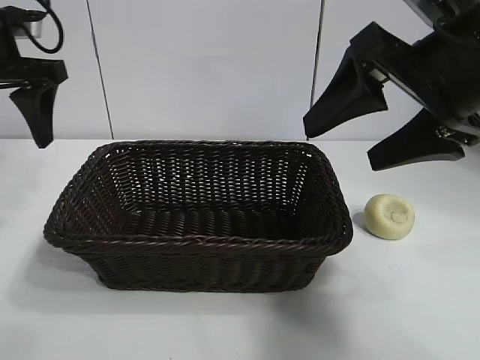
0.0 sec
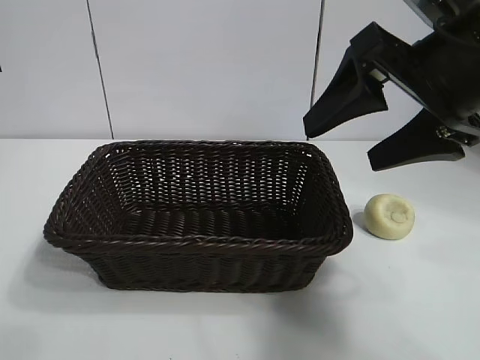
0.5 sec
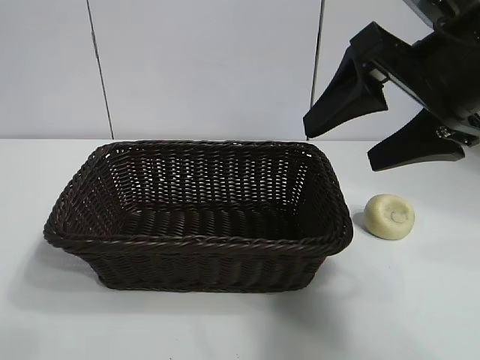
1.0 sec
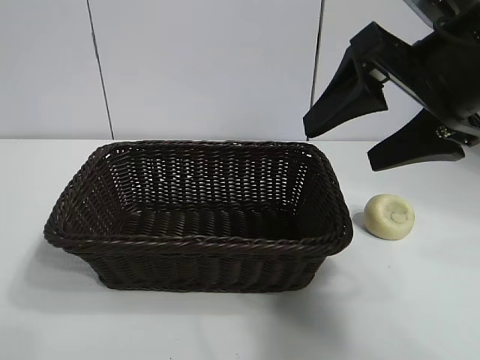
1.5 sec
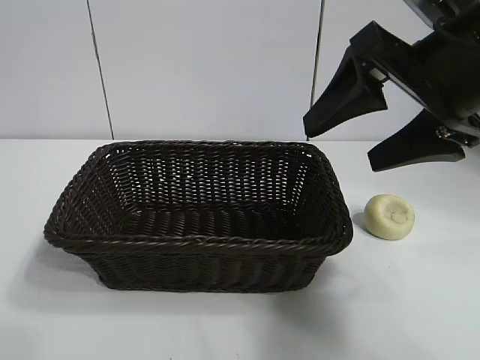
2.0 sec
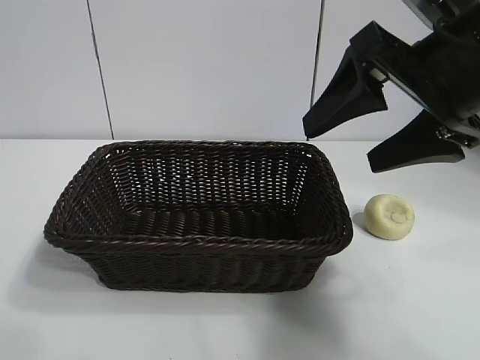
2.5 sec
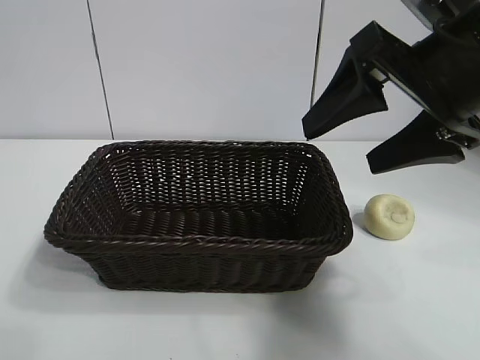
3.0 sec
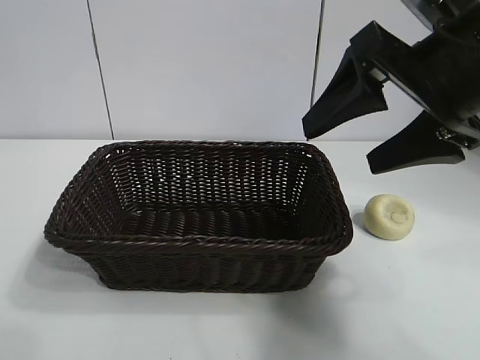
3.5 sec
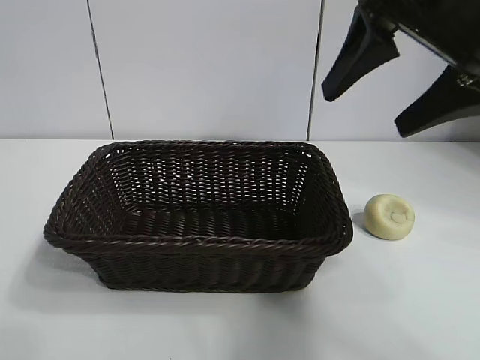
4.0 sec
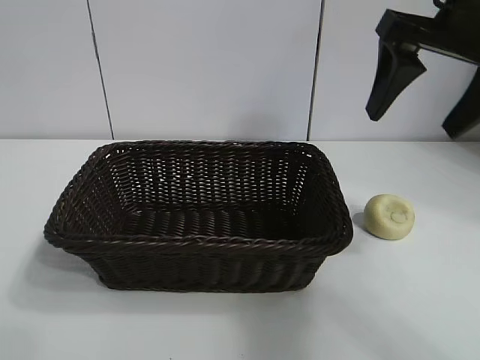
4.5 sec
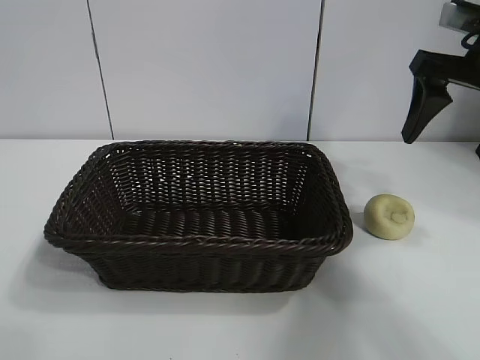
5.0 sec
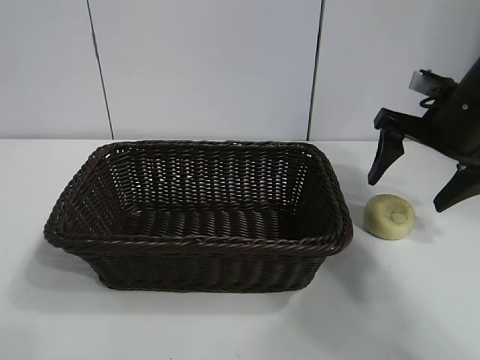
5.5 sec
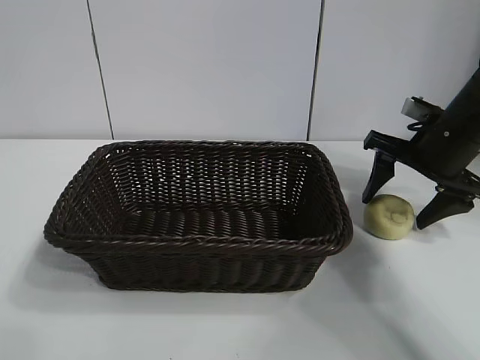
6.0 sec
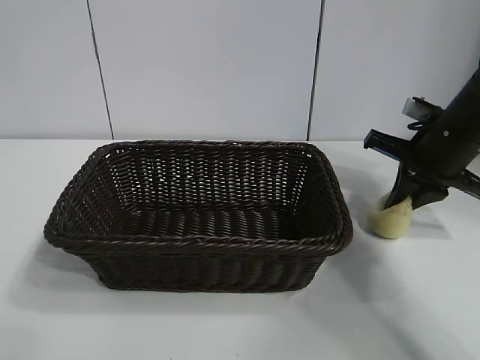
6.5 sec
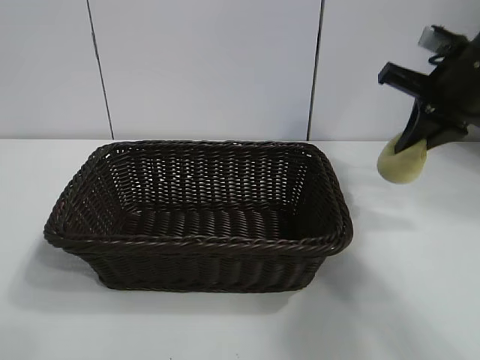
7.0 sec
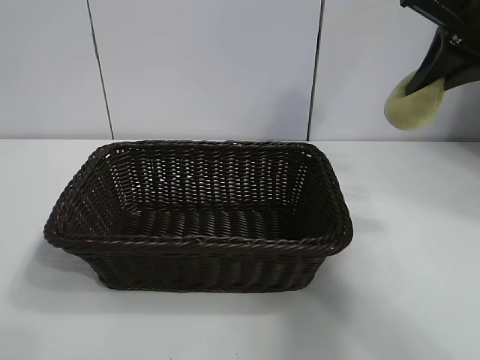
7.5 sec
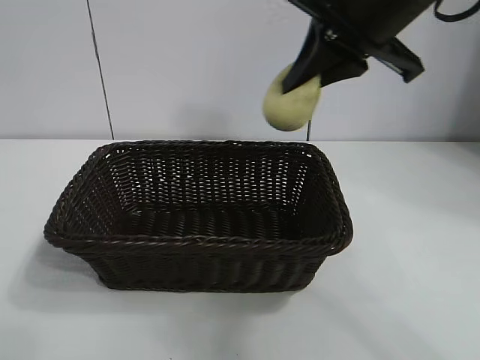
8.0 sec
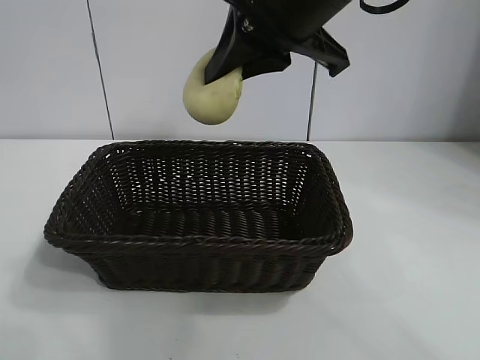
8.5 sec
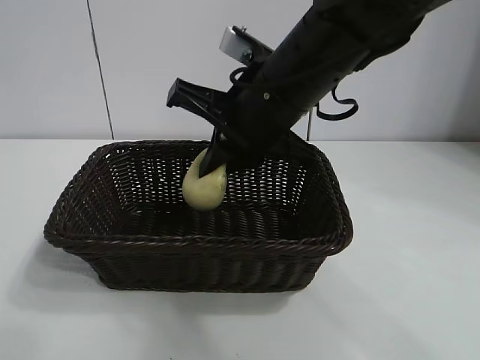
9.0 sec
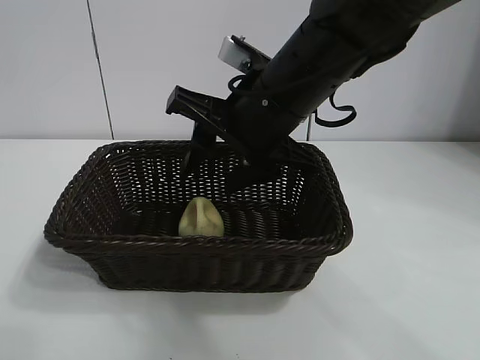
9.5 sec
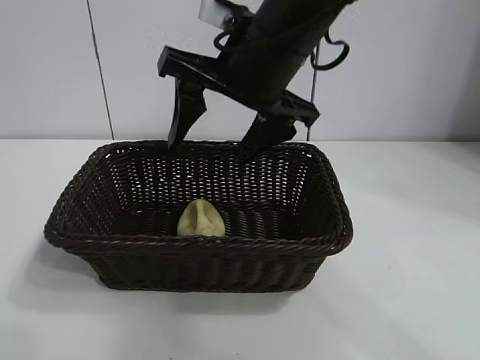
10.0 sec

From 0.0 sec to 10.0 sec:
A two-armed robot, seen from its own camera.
Task of the whole recording: pick up the egg yolk pastry and put it into the basket.
Step, from 0.0 sec to 6.5 sec: Grasp egg yolk pastry with right gripper.
Step, from 7.0 sec to 9.5 sec: Place the egg yolk pastry in the basket with right gripper.

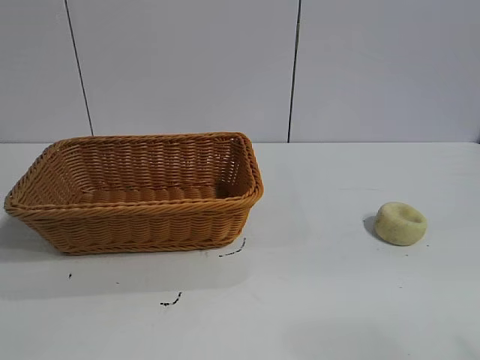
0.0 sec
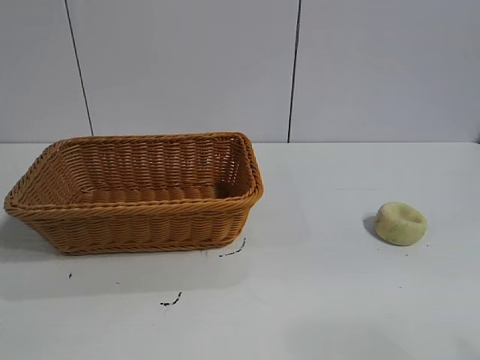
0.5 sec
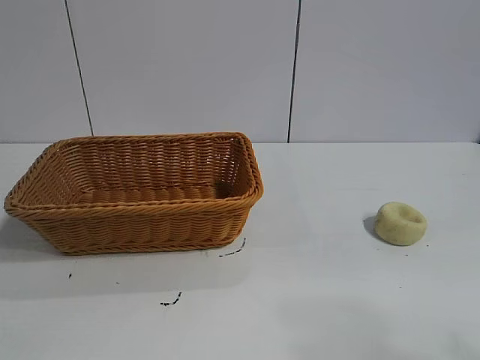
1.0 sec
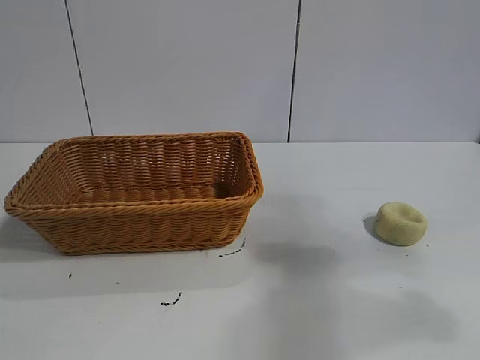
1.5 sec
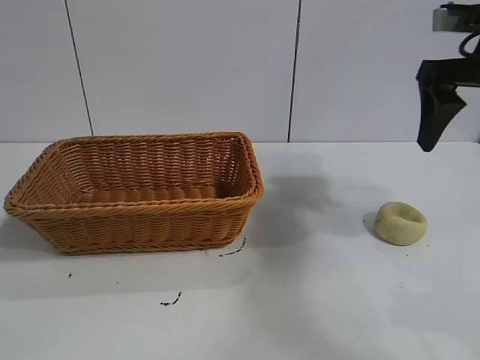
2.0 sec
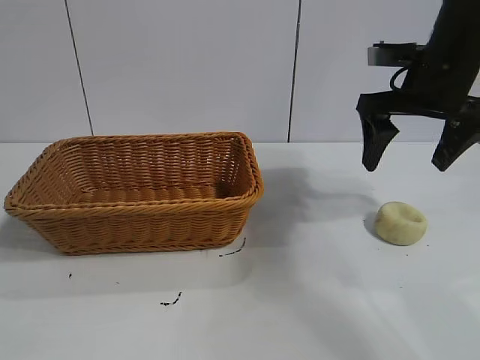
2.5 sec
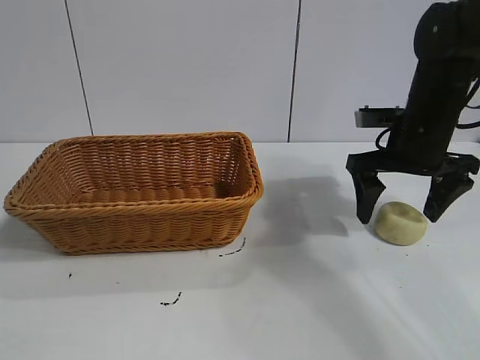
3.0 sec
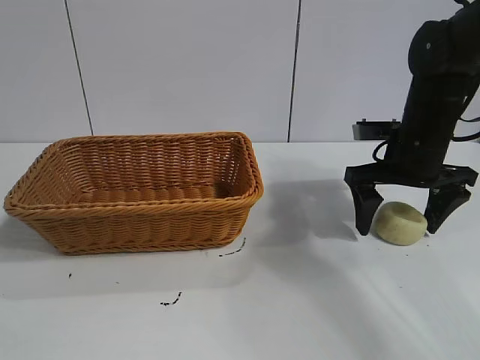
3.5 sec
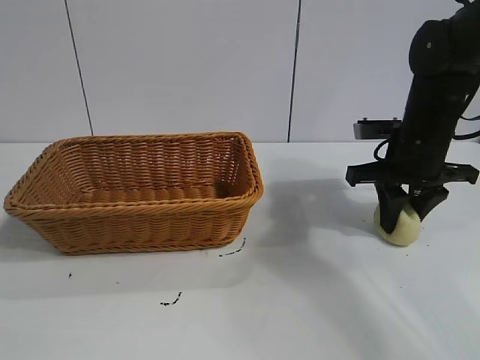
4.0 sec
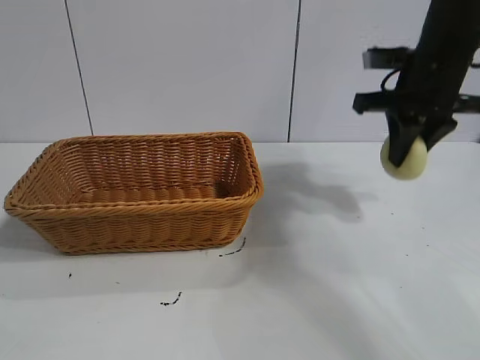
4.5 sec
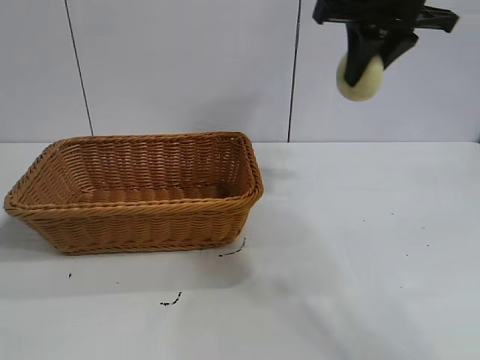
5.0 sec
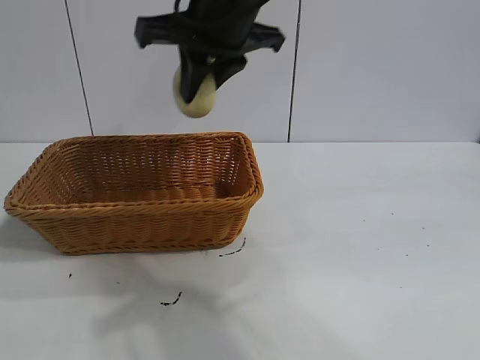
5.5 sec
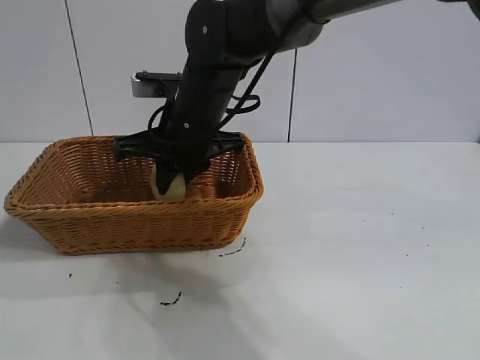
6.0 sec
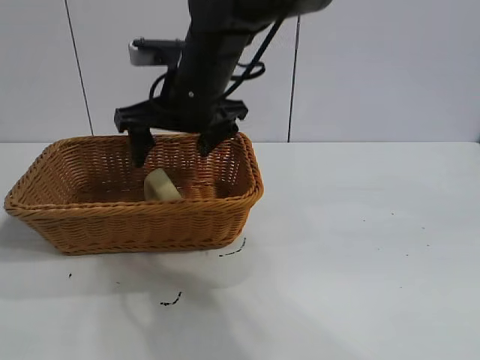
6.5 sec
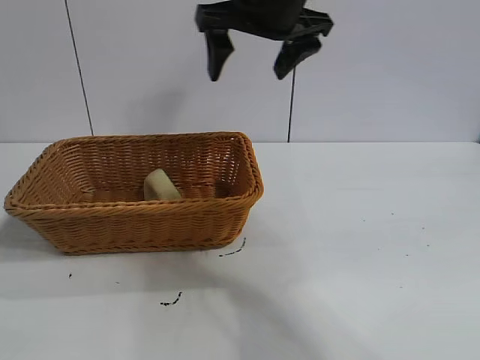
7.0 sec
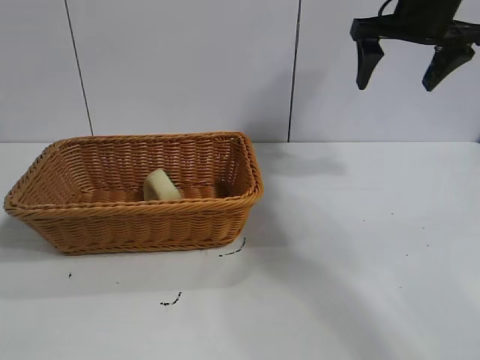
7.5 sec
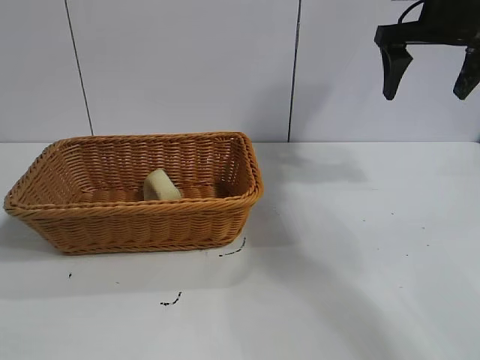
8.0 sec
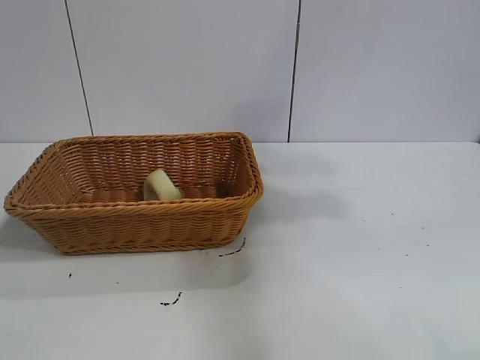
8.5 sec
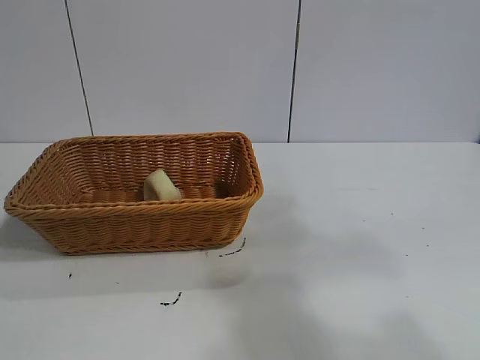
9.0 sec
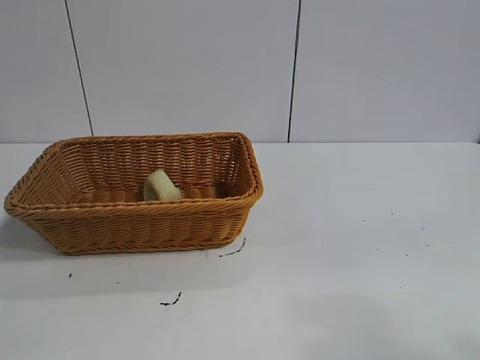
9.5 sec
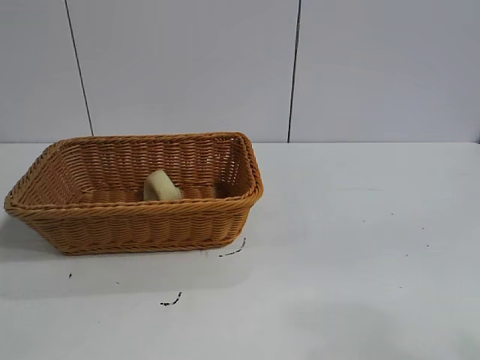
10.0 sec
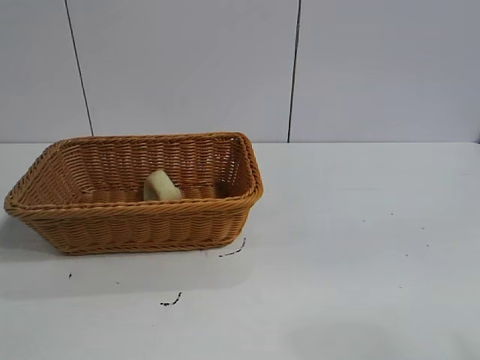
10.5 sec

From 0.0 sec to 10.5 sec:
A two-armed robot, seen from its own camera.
Task of the whole recording: pick up the egg yolk pastry and put it into the basket.
Step, from 1.0 sec to 4.0 sec: Grasp egg yolk pastry with right gripper.
Step, from 4.5 sec to 6.0 sec: Place the egg yolk pastry in the basket with right gripper.

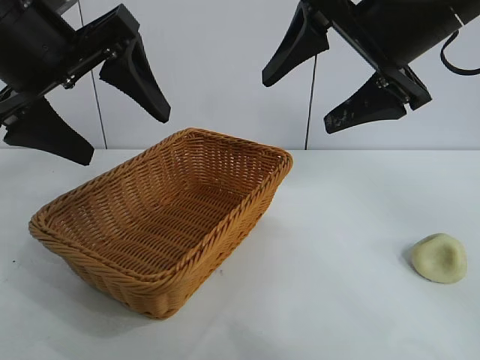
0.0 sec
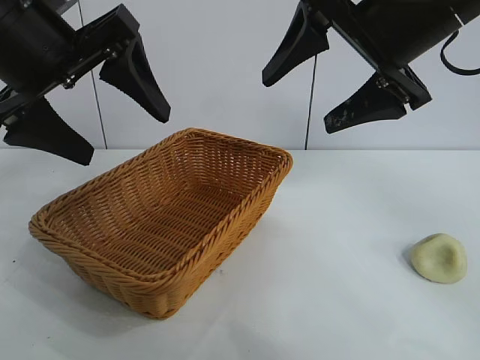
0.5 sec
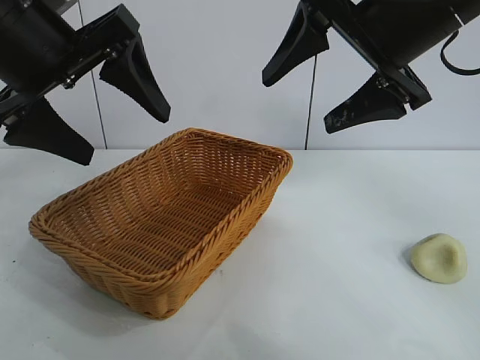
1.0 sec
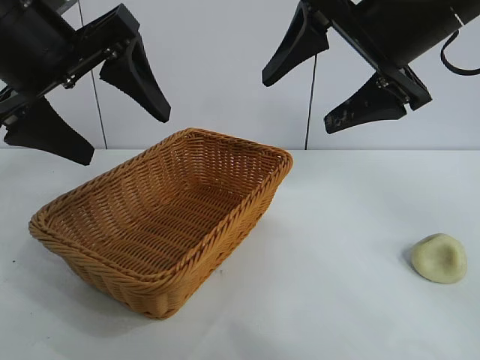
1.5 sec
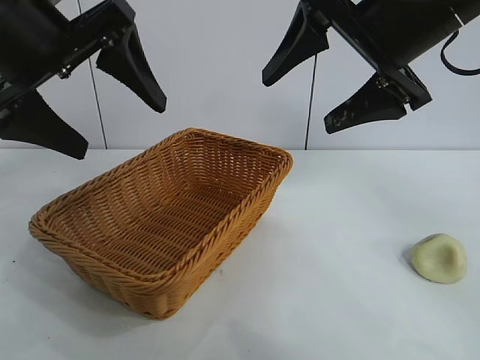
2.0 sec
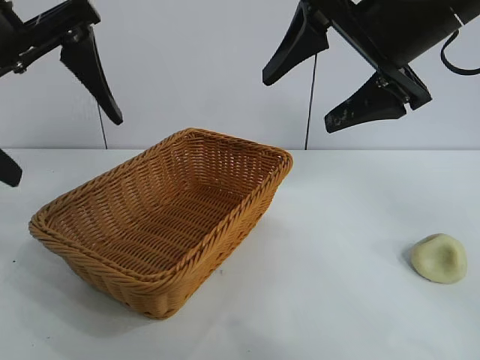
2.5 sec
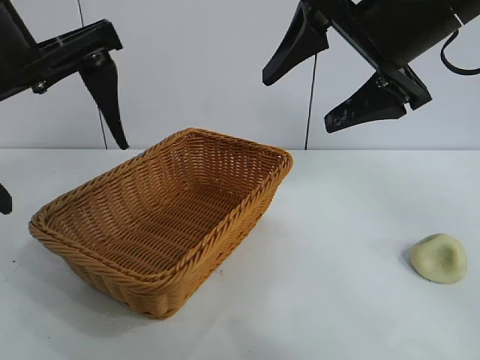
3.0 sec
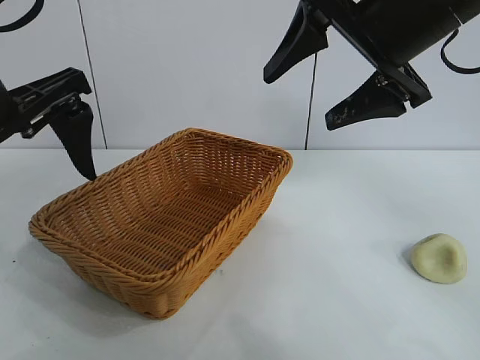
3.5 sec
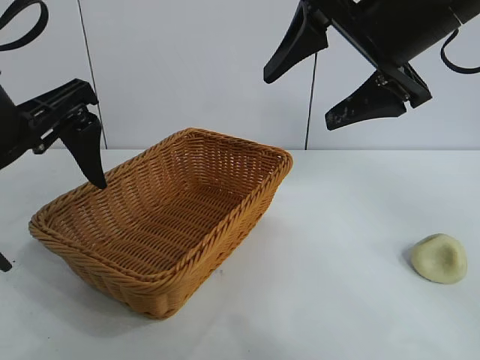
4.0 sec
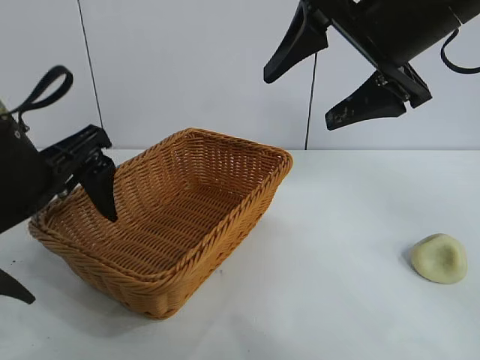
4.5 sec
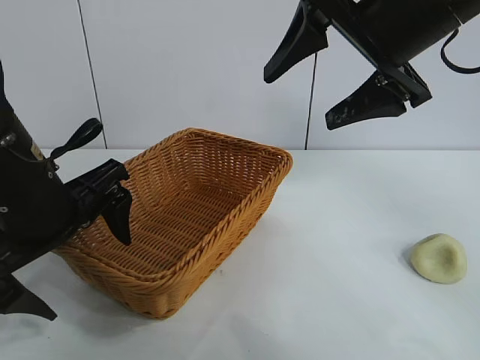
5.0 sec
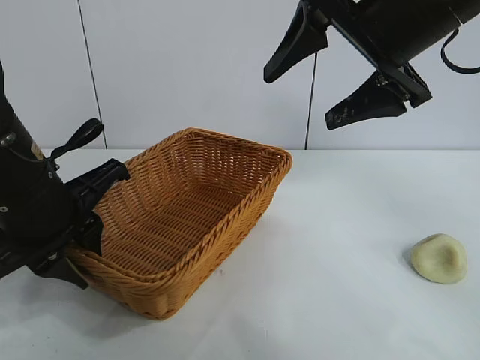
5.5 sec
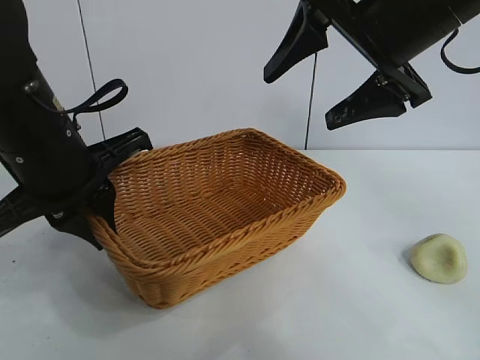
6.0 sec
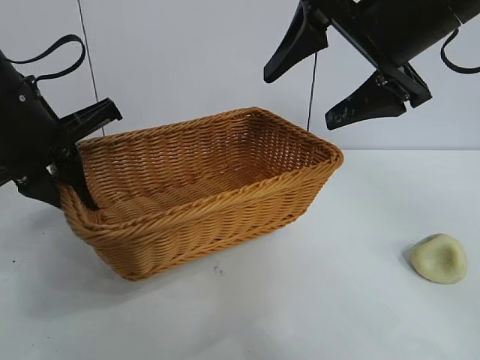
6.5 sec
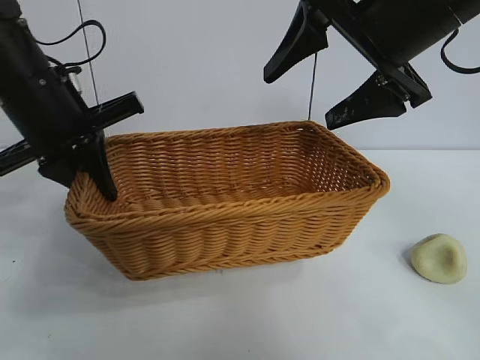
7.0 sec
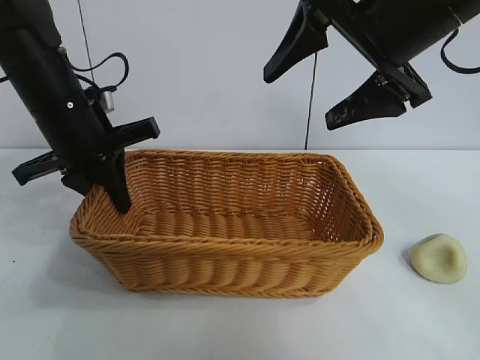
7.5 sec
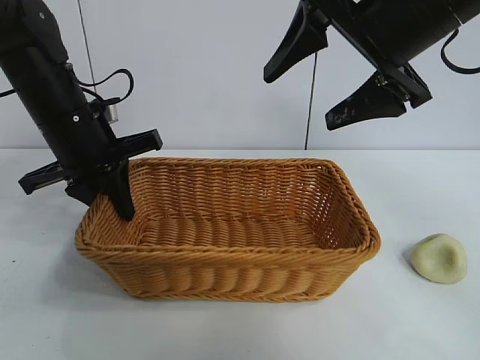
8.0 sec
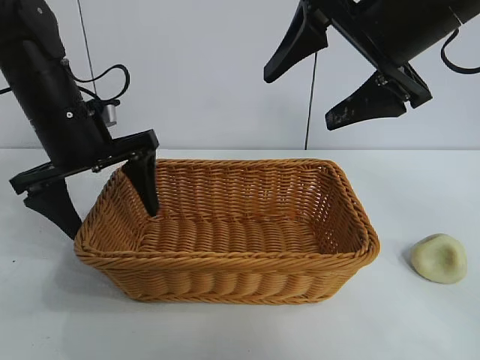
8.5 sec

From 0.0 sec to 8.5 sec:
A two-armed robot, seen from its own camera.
Task of the whole recording: pick up the egg yolk pastry and put it into the basket.
Step, from 2.0 sec to 5.5 sec: Grasp the basket with left gripper.
Step, from 6.0 sec to 8.0 sec: Place the basket in the center of view with left gripper.
